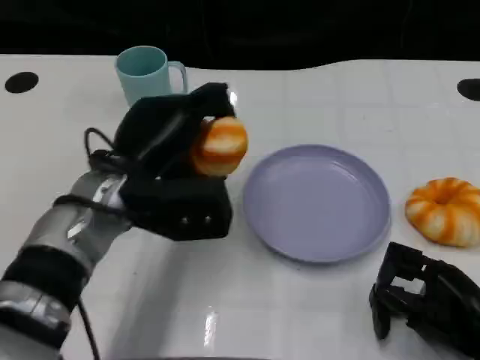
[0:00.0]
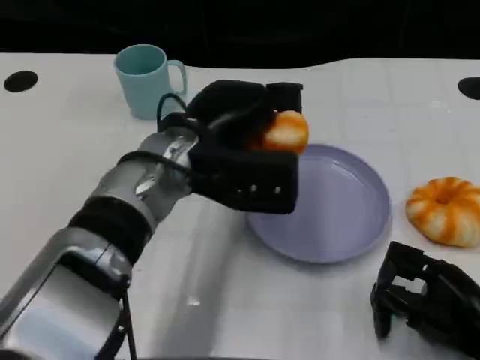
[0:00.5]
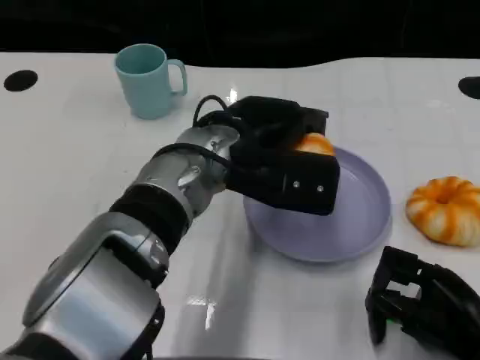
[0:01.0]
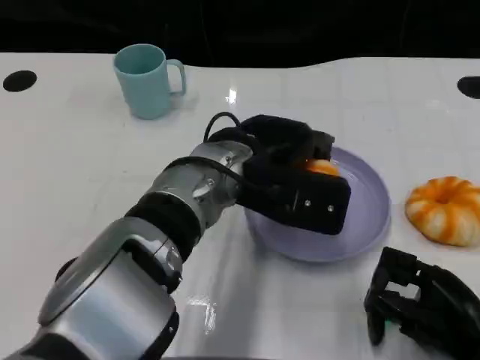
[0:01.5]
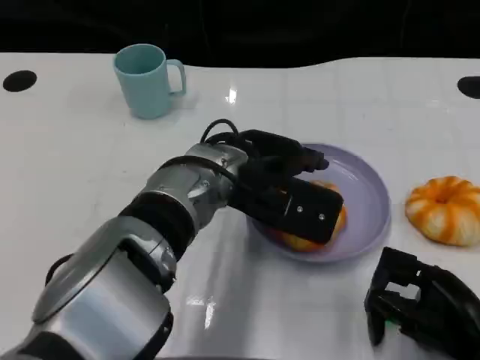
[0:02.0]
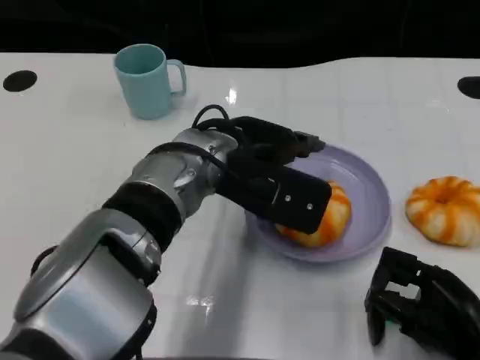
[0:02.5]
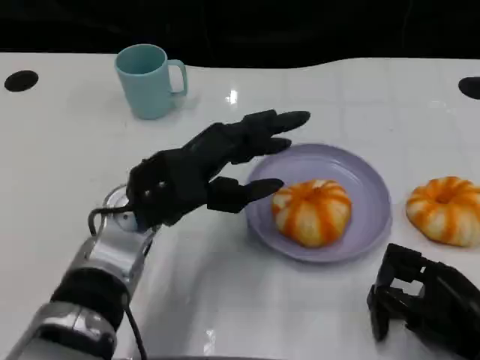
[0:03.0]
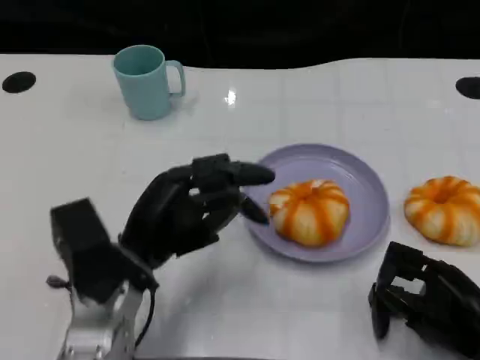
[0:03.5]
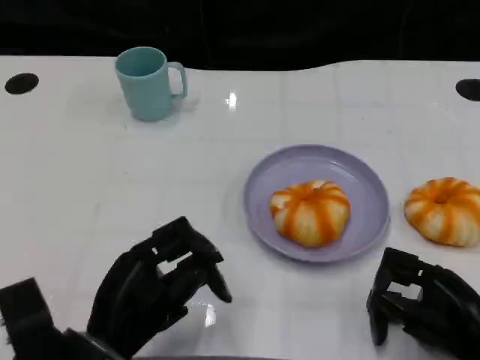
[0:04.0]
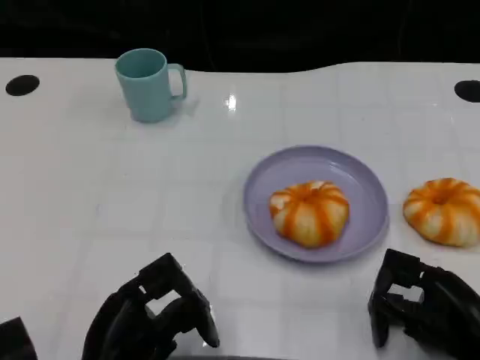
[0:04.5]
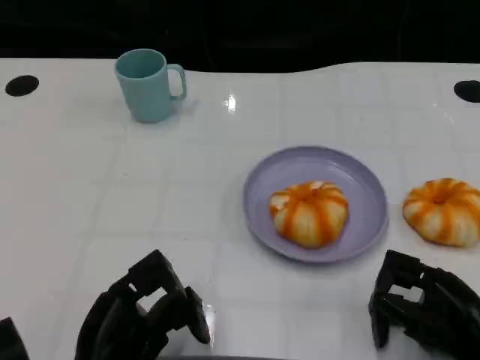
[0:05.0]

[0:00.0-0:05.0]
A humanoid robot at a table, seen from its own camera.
Task of the whole recording: Grasp the bread from the table and place it into the plate.
0:00.0 to 0:02.5: The left hand shifts some 10 cm to the right.
0:02.5 to 0:05.0: The left hand heads backward, to the left and downward, covering roughly 25 cm.

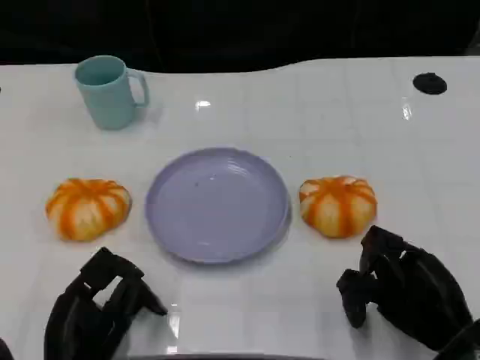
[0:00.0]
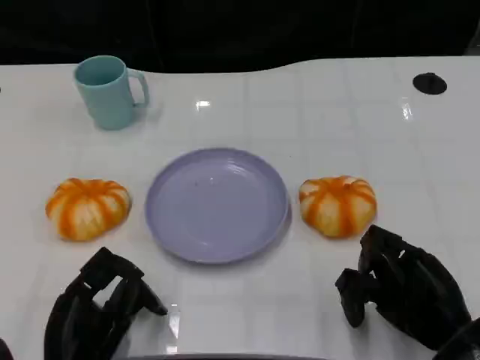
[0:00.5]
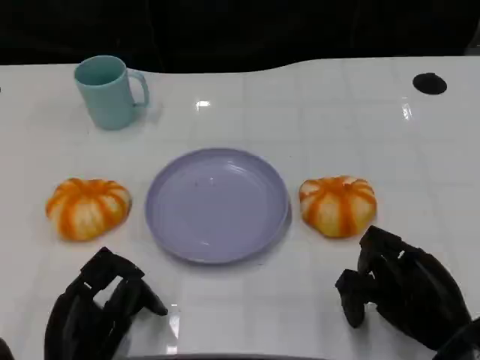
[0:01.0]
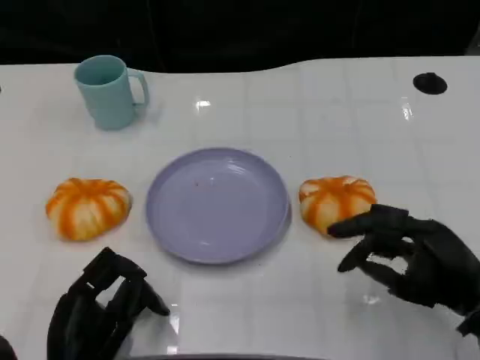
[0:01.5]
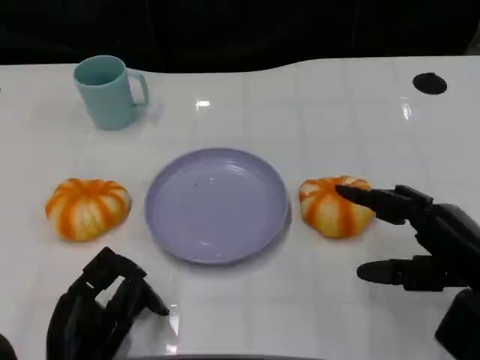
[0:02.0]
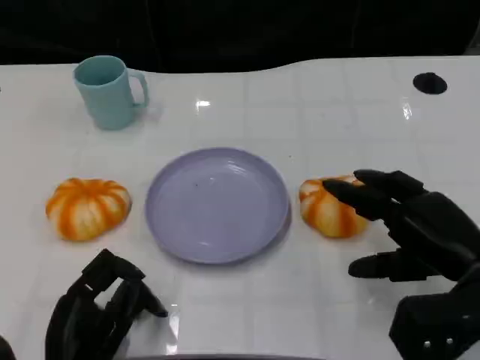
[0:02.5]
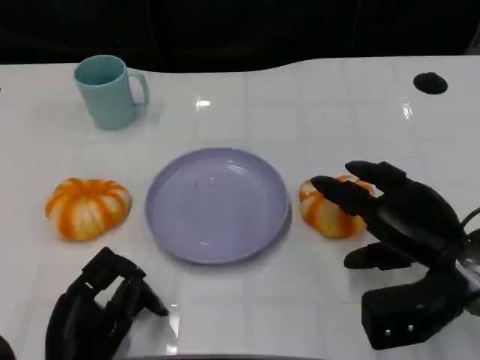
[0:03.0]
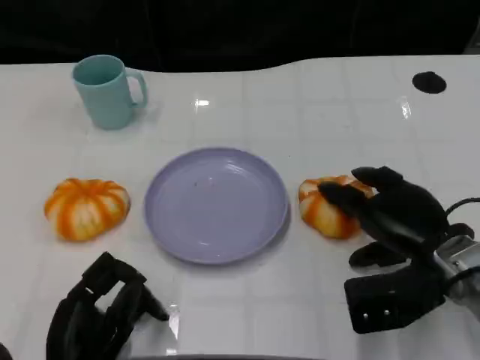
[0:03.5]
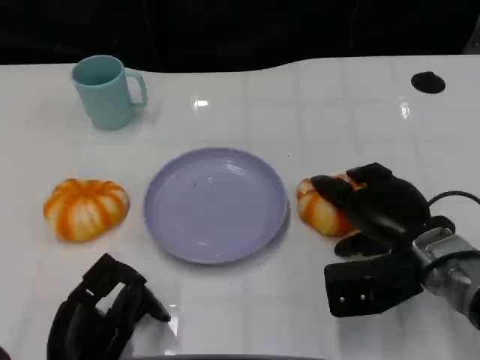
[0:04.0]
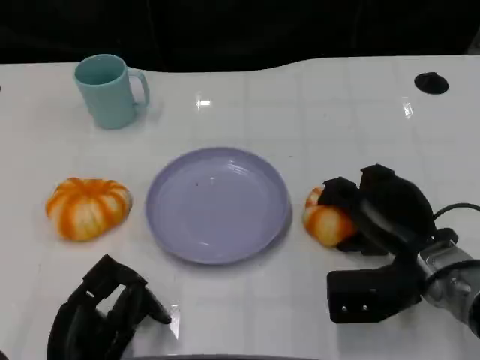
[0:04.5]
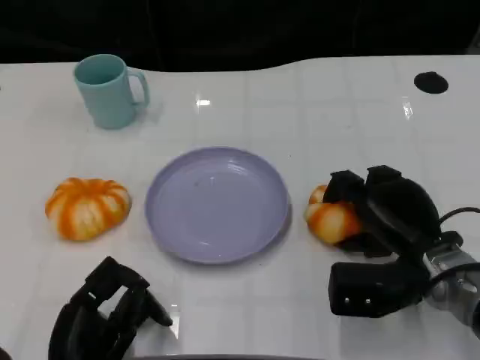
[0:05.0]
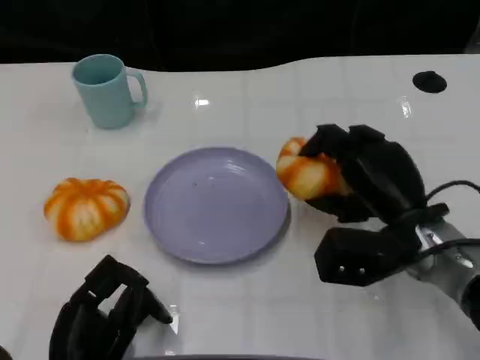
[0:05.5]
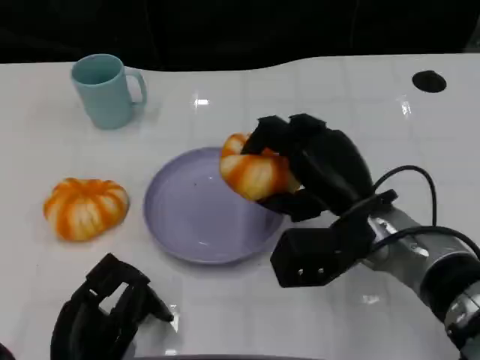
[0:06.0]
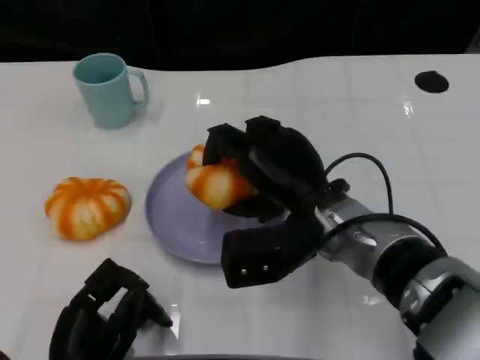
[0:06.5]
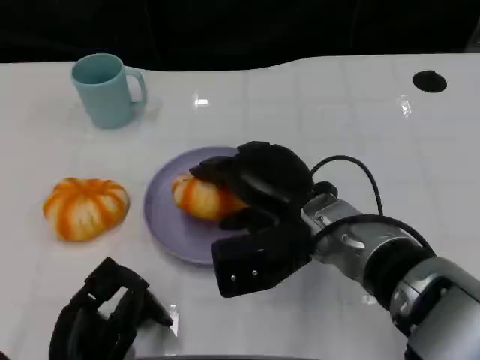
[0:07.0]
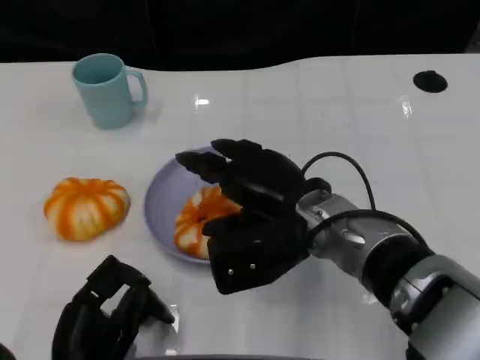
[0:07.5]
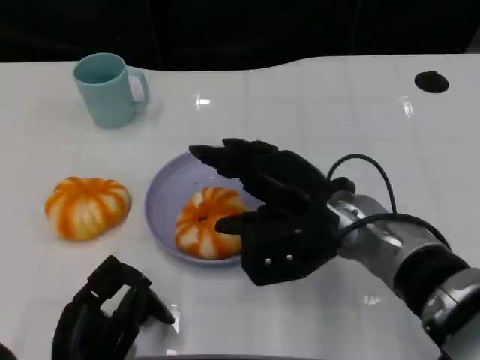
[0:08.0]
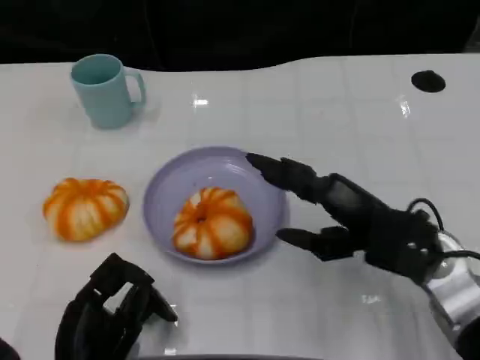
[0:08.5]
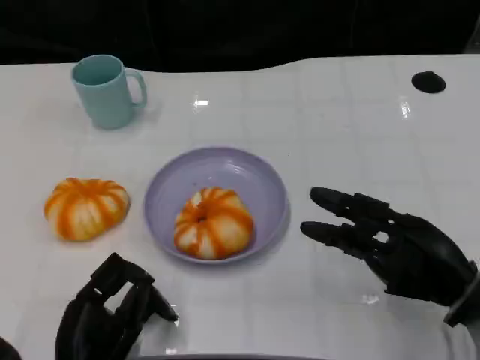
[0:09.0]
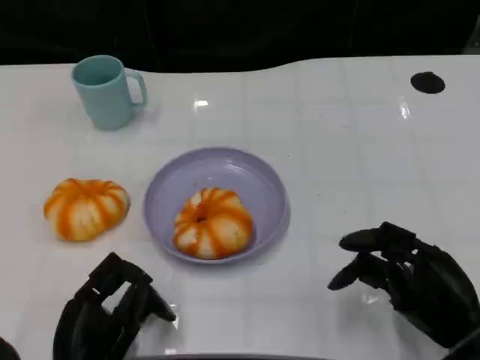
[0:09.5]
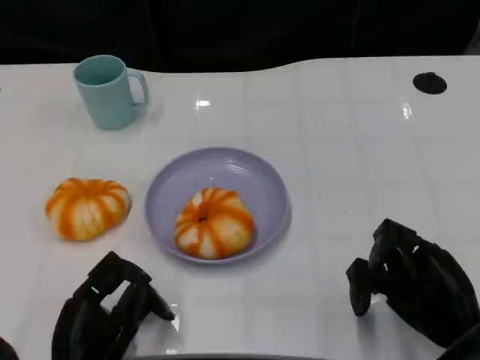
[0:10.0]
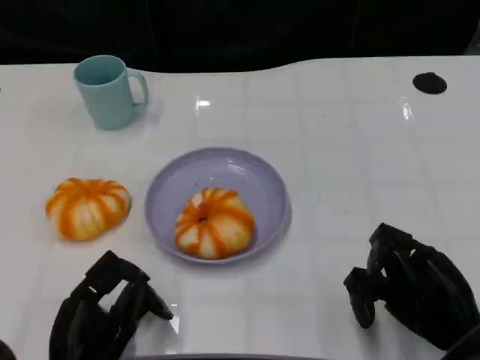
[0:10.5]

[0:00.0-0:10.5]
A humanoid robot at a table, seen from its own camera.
Task of the whole recording: Grasp the bread from the table and place it into the plate.
0:00.0 to 0:02.0: The right hand heads upward, covering approximately 5 cm.
0:02.0 to 0:04.0: The right hand moves to the left and forward, approximately 10 cm.
0:04.0 to 0:06.5: The right hand goes roughly 10 cm to the left.
0:06.5 to 0:08.5: The right hand moves to the right, approximately 10 cm.
0:08.5 to 0:10.5: The right hand travels backward, downward and to the right by some 10 cm.

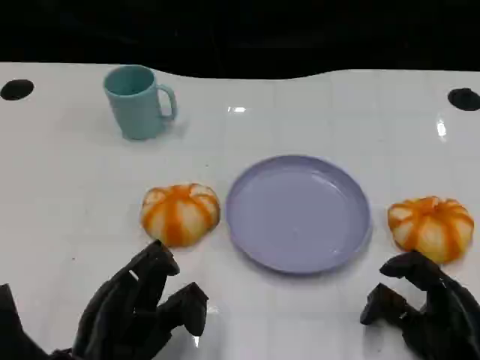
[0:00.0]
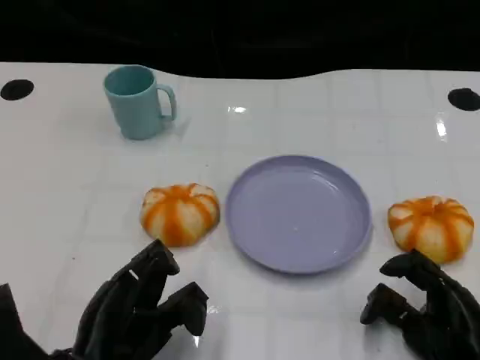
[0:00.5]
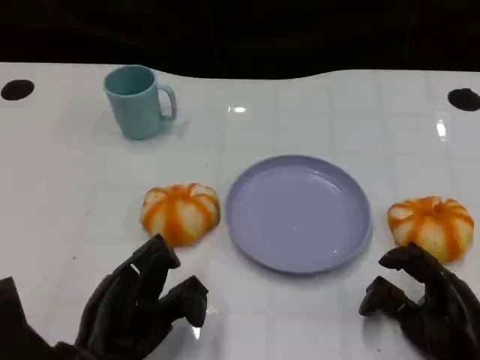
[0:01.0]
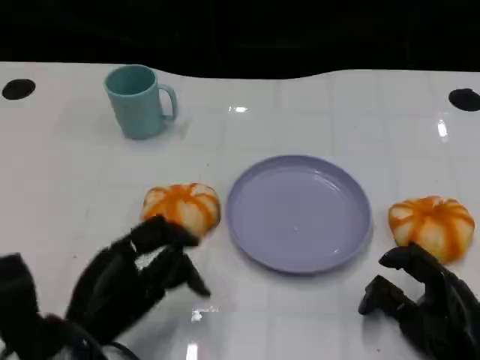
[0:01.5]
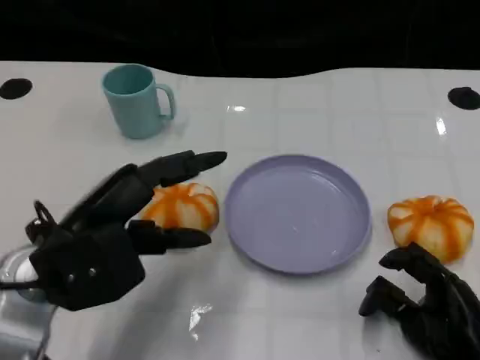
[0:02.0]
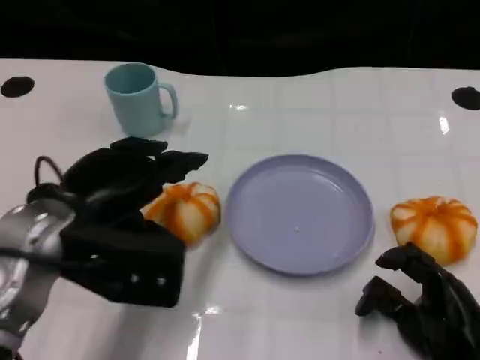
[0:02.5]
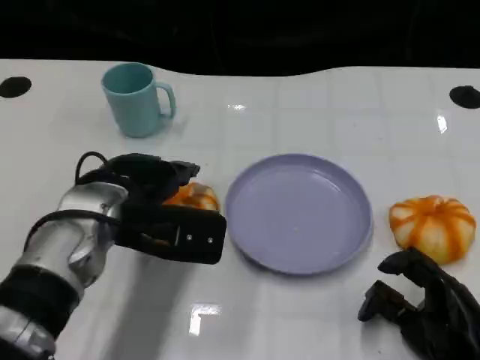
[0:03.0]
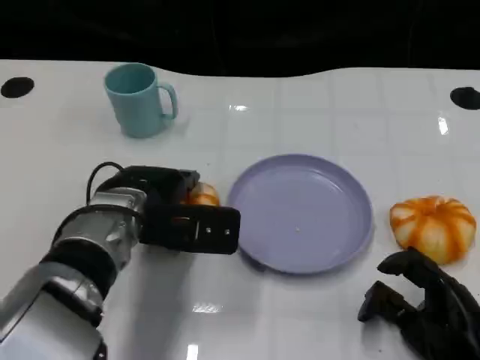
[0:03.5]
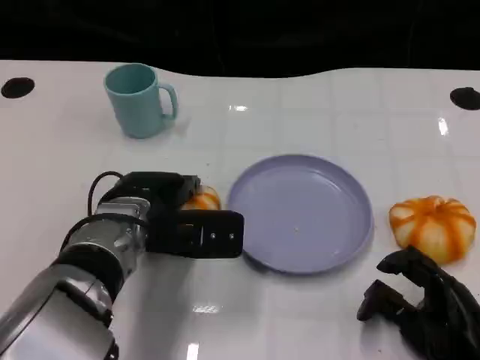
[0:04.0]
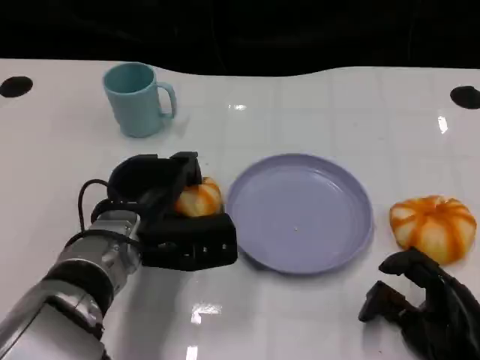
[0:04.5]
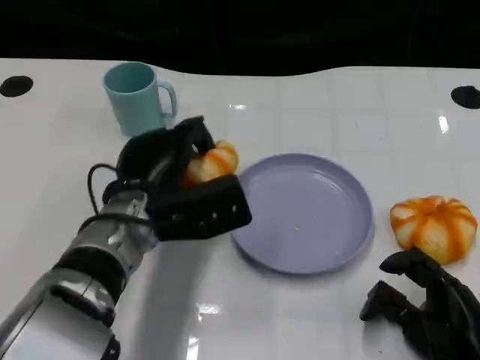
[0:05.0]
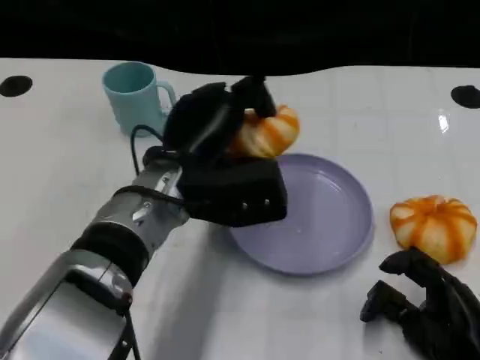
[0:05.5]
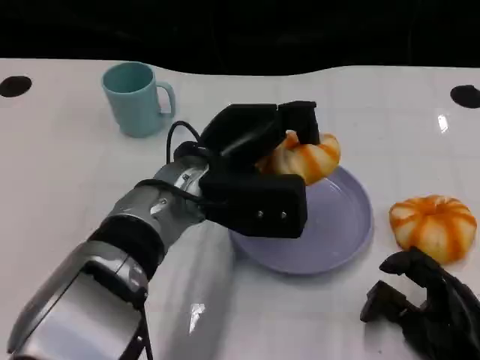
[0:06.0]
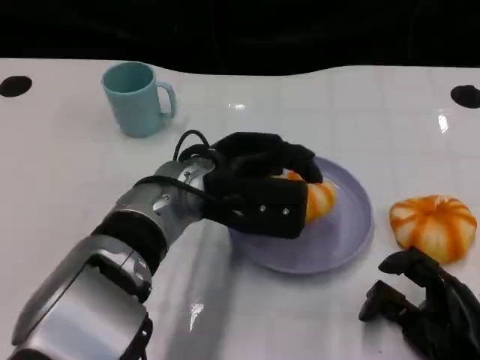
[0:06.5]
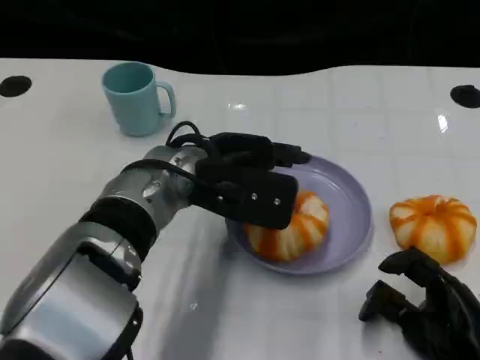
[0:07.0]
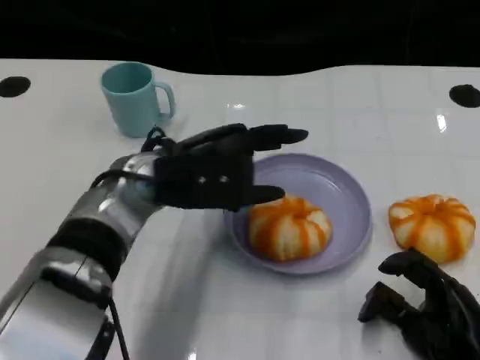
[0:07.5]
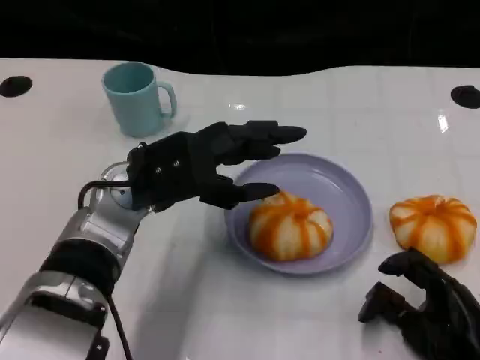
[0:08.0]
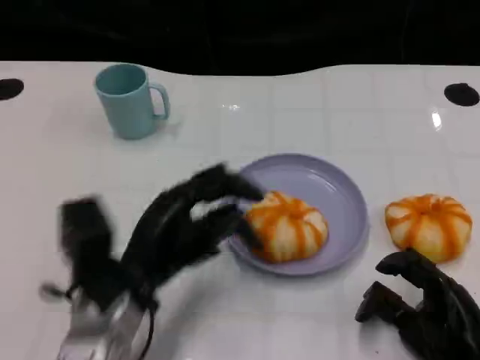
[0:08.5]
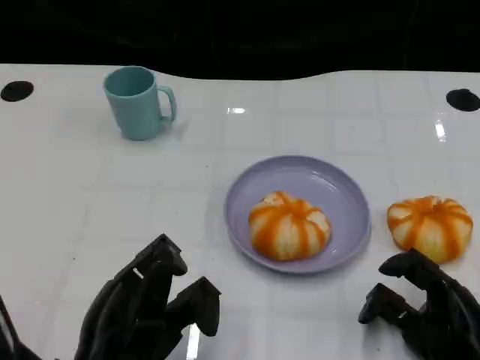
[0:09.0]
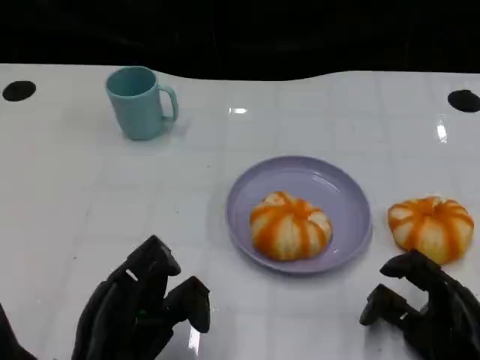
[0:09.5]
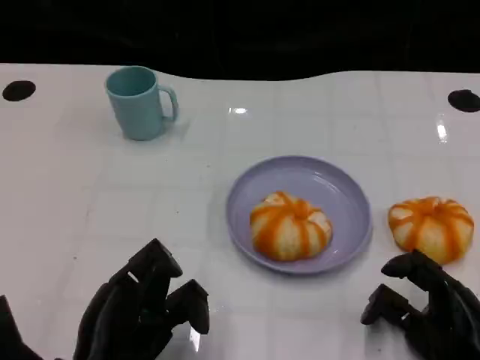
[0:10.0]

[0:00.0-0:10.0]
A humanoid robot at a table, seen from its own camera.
Task of the whole recording: Grasp the bread from the table and place it into the plate.
0:00.0 to 0:02.0: The left hand moves upward and forward, some 10 cm.
0:02.0 to 0:04.0: The left hand heads to the right, forward and downward, covering approximately 10 cm.
0:04.0 to 0:06.0: The left hand shifts about 10 cm to the right and upward.
0:06.0 to 0:08.0: The left hand goes approximately 5 cm to the left.
0:08.0 to 0:10.0: The left hand goes about 20 cm backward, downward and to the left.
